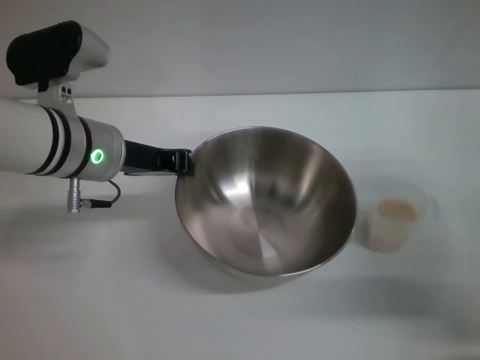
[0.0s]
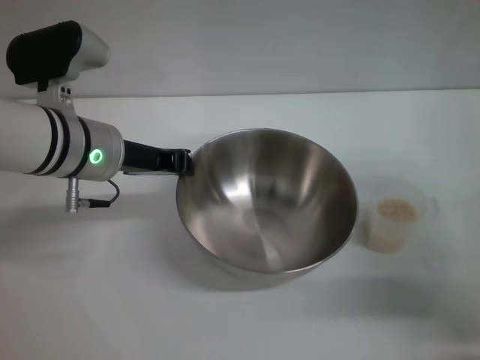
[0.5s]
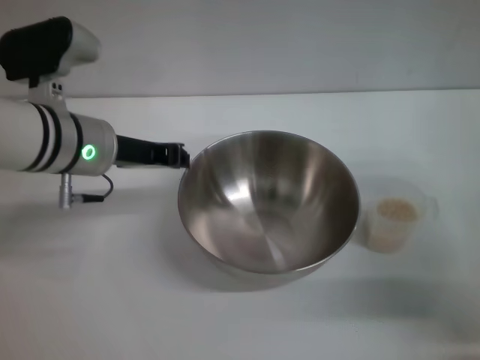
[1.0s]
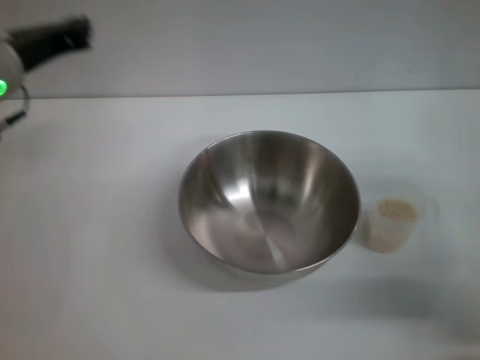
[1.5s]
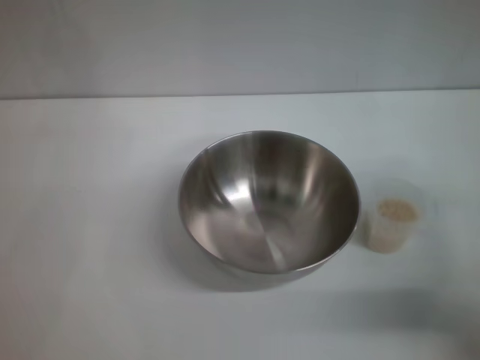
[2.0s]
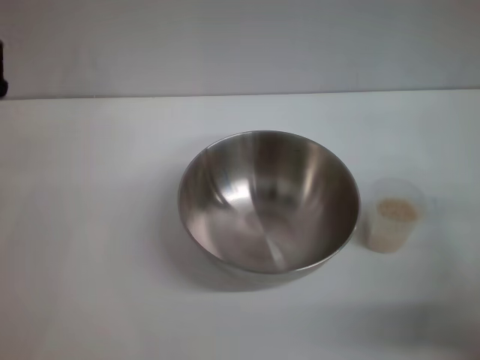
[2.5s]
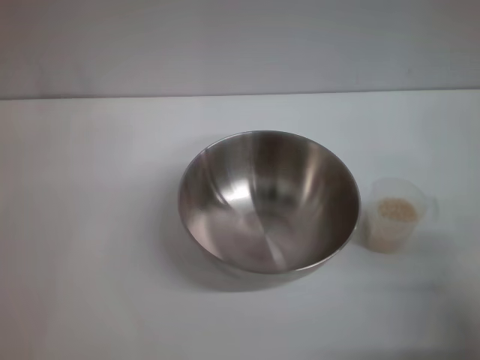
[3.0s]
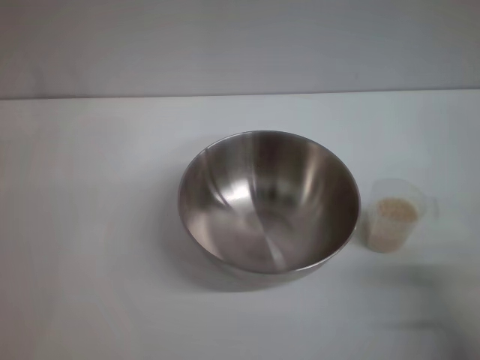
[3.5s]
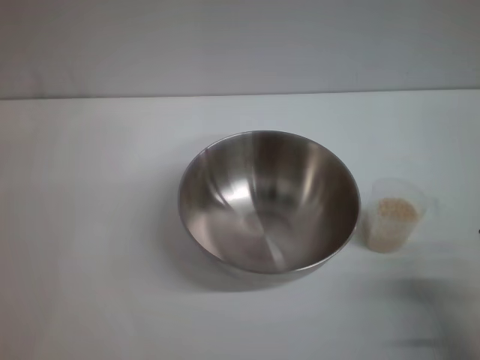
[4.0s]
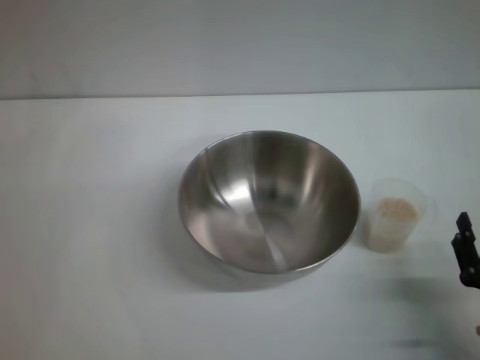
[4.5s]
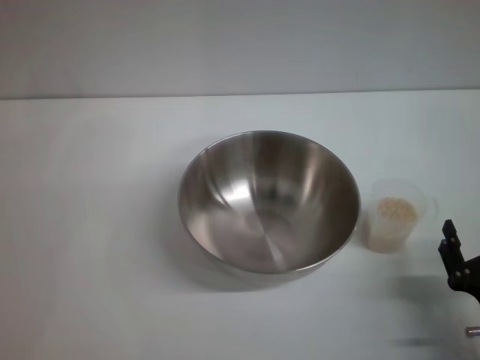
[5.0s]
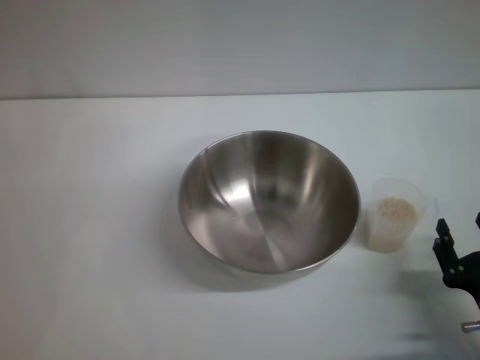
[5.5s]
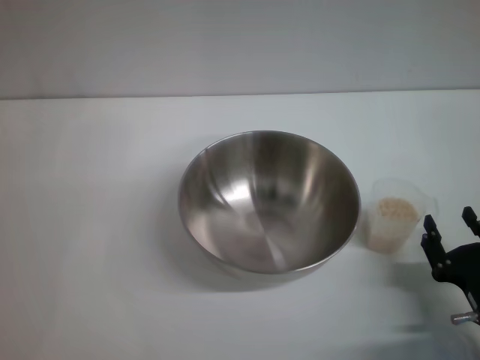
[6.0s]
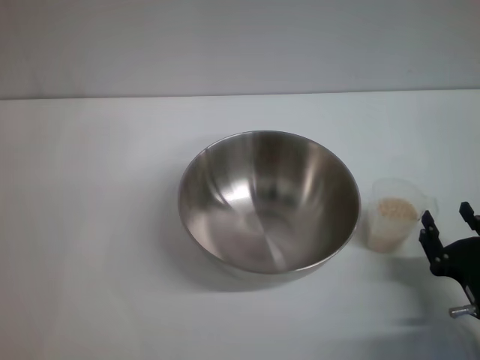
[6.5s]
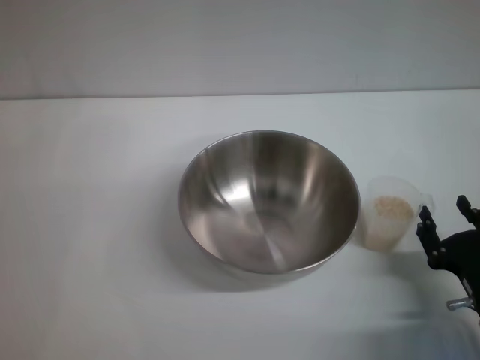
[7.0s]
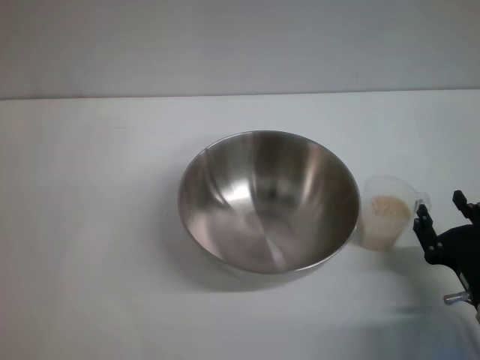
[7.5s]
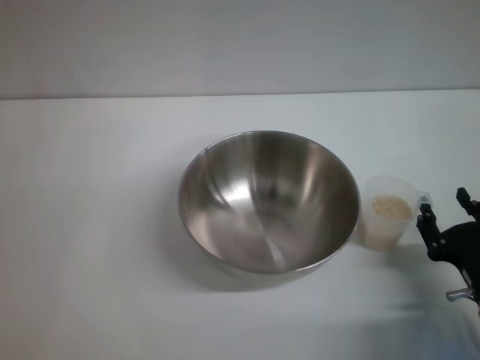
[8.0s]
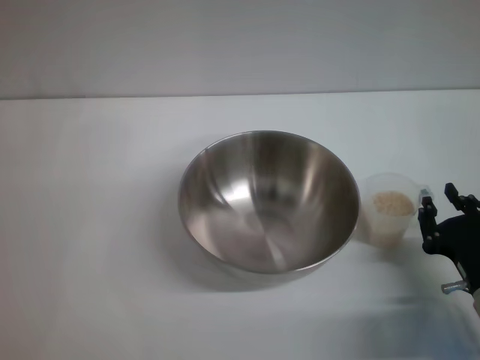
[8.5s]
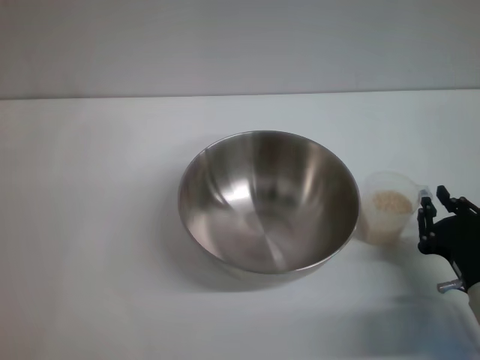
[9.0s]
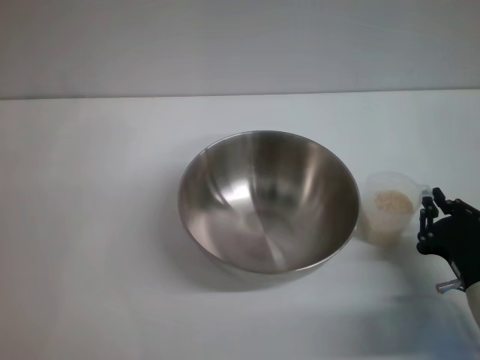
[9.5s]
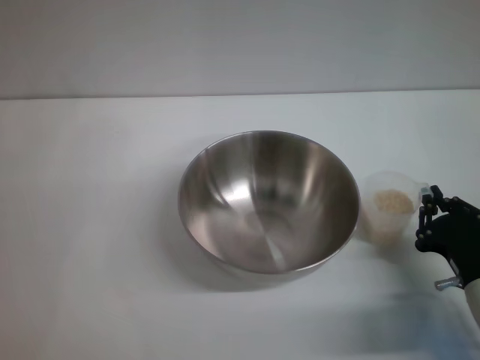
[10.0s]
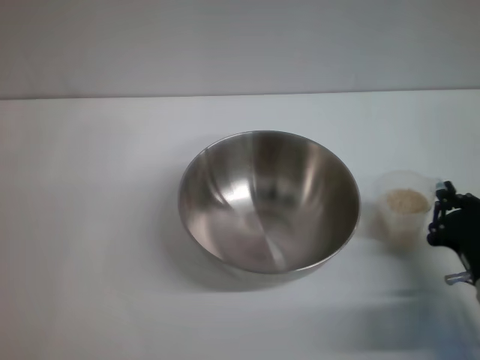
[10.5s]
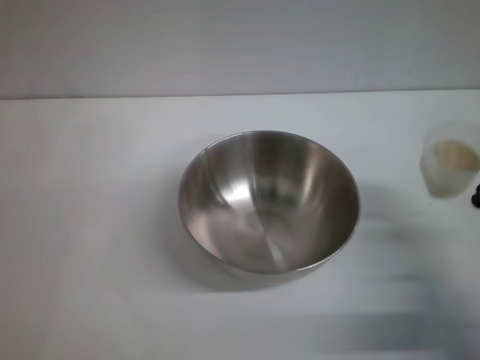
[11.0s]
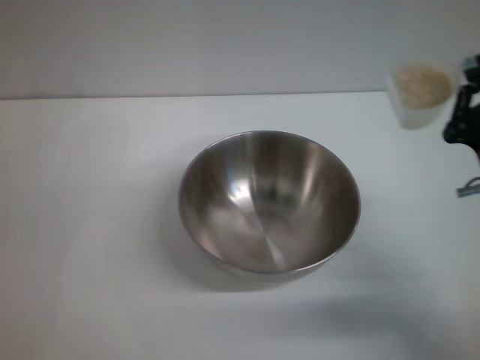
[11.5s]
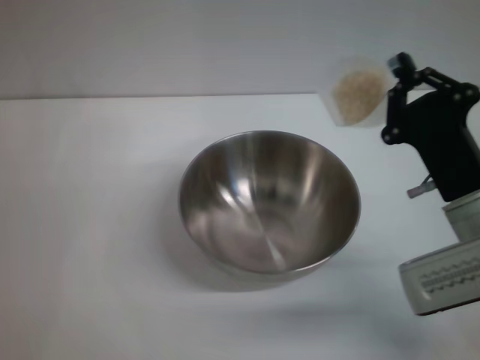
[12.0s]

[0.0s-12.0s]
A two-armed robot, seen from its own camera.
Task of the whole recording: Place the bowl in the middle of the table with one hand and pour the rice from the grain cup into it with the other hand.
Step, 1.5s to 11.0s: Pick up the cup with rice in it with the right gripper.
0.0s to 2.0s: The left gripper shifts approximately 10 cm to the left and backward.
2.0s to 4.0s: The right gripper heads backward, downward and to the left, covering about 15 cm.
4.0s to 8.0s: The grippers stay close to where they were, moving slightly.
8.0s to 10.0s: The right gripper closes.
10.0s to 12.0s: The right gripper heads upward and forward, covering about 10 cm.

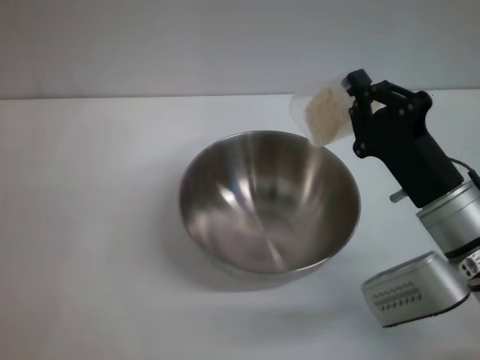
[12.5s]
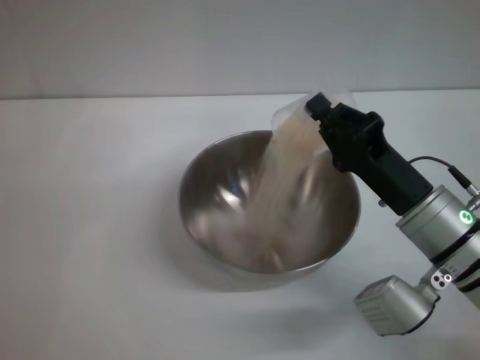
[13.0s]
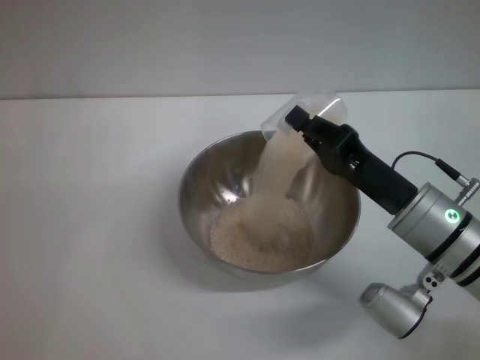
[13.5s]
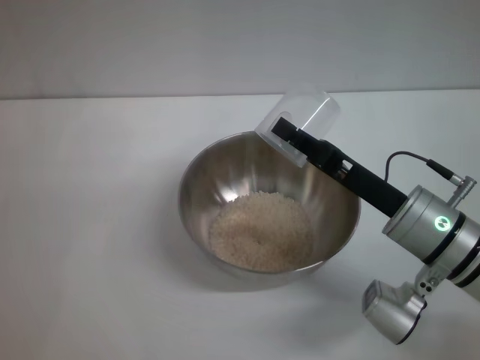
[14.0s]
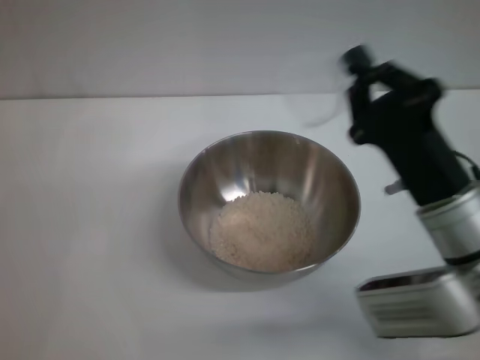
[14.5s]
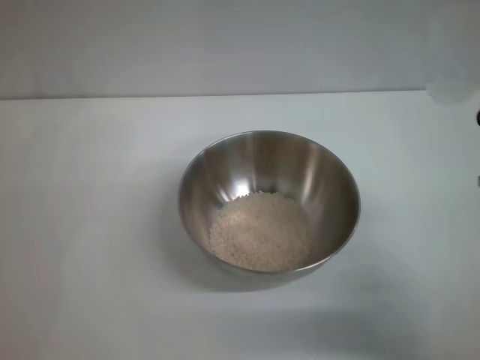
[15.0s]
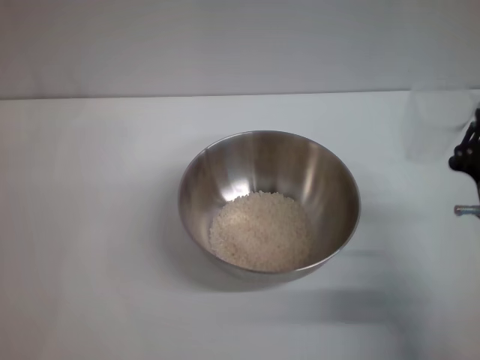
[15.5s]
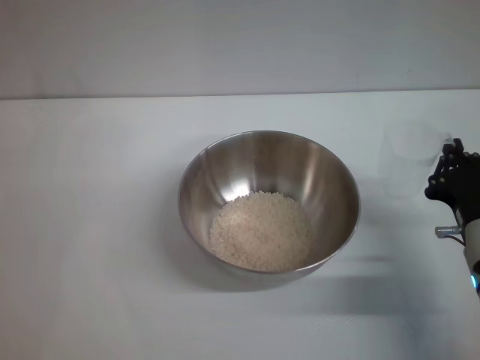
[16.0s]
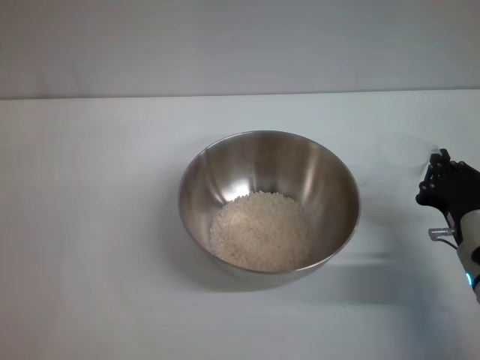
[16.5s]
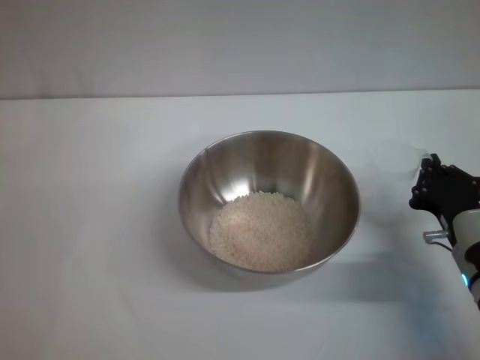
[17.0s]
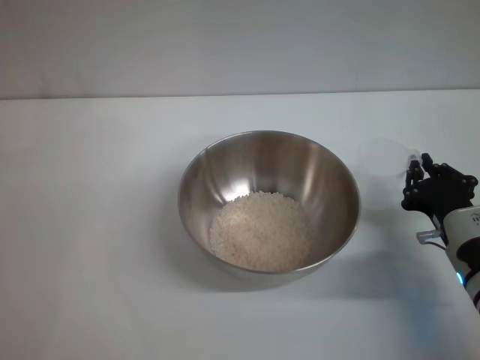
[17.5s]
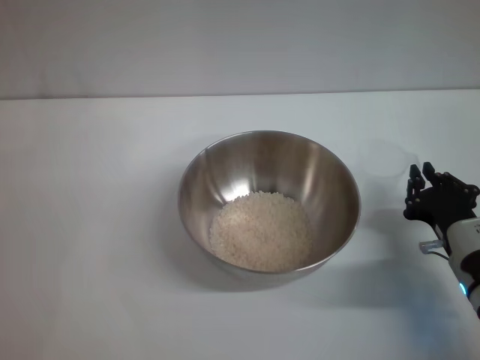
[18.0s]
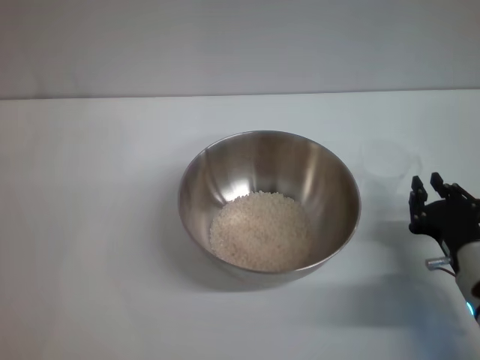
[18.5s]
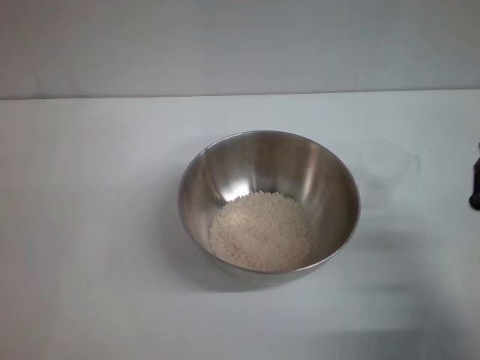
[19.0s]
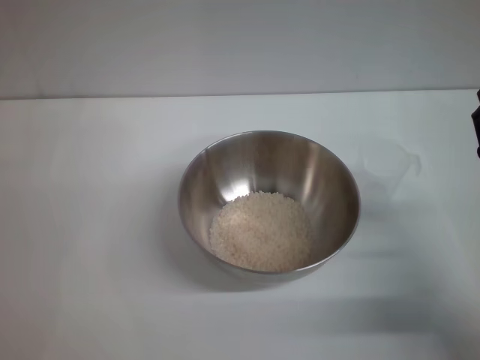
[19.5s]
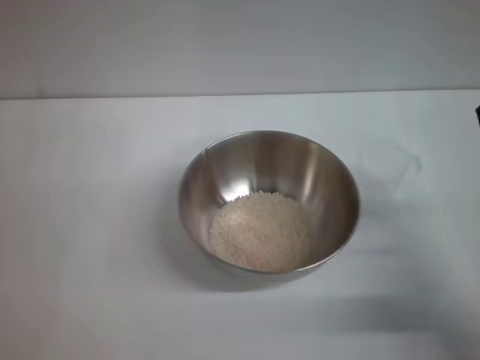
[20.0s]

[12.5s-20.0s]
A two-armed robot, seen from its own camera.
Task of the whole recording: Place the bowl in the middle of the table with one hand and pour the rice from the grain cup into it with the other hand.
Step, 14.5s to 18.5s: Place the cup on the table with the right gripper.
14.5s to 16.5s: The right gripper heads downward and to the right, covering about 10 cm.
16.5s to 18.0s: The grippers stay close to where they were, moving slightly.
18.0s to 20.0s: The right gripper is displaced upward by some 5 cm, and opens up.
